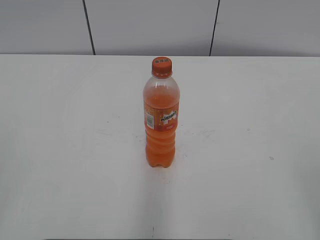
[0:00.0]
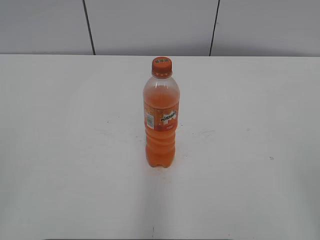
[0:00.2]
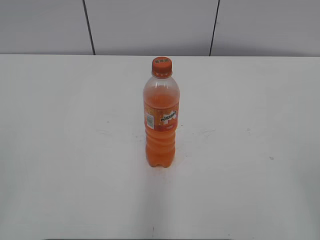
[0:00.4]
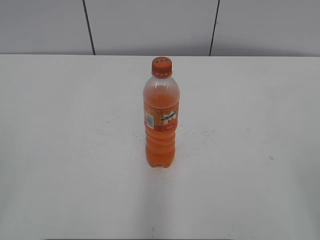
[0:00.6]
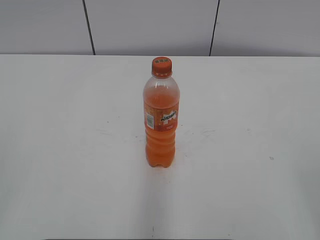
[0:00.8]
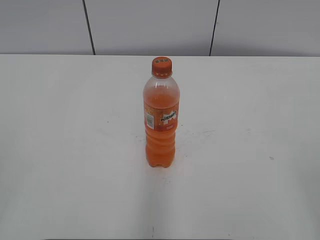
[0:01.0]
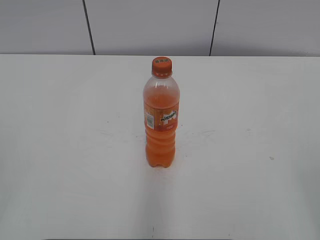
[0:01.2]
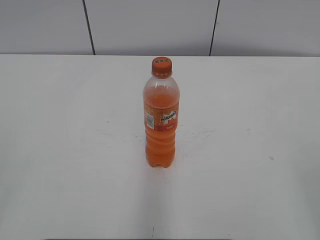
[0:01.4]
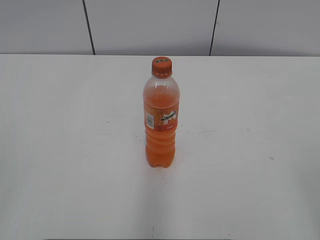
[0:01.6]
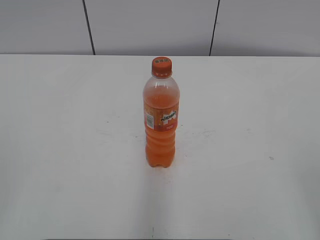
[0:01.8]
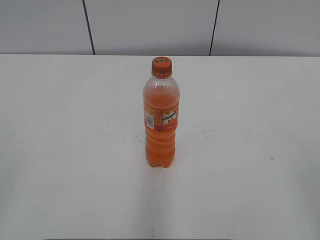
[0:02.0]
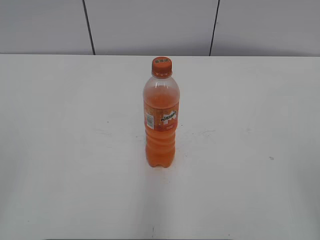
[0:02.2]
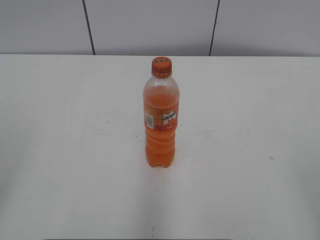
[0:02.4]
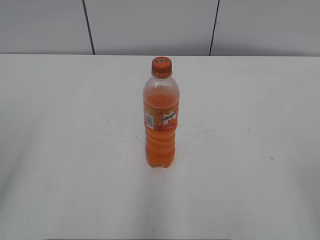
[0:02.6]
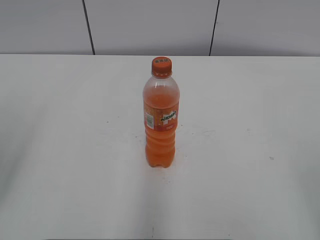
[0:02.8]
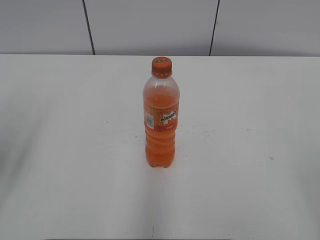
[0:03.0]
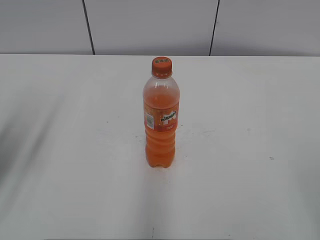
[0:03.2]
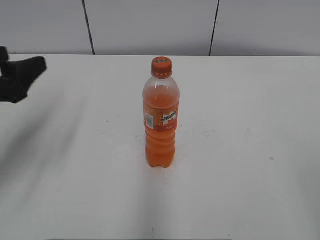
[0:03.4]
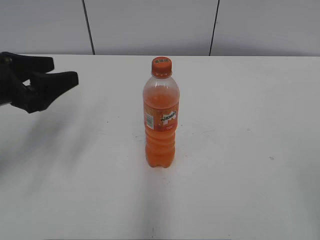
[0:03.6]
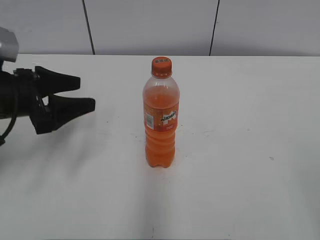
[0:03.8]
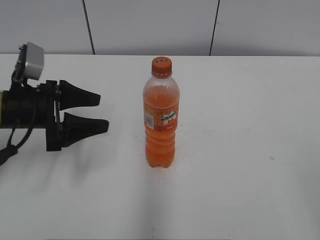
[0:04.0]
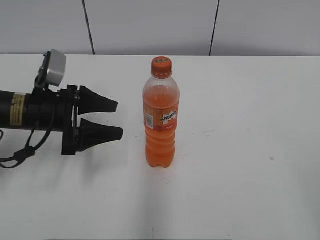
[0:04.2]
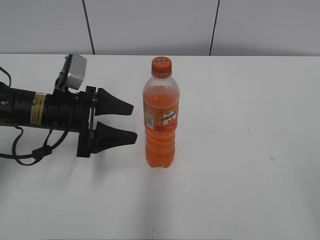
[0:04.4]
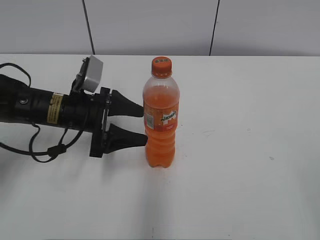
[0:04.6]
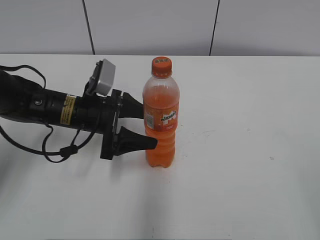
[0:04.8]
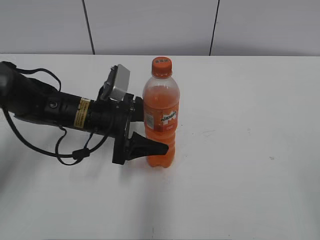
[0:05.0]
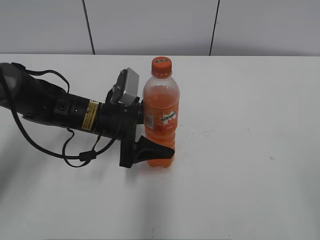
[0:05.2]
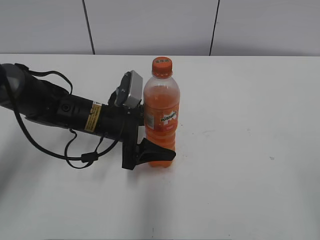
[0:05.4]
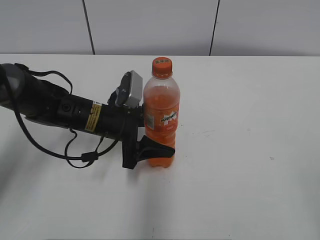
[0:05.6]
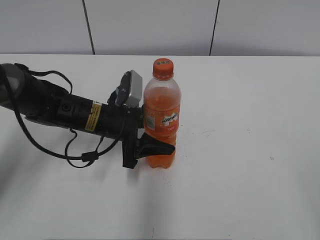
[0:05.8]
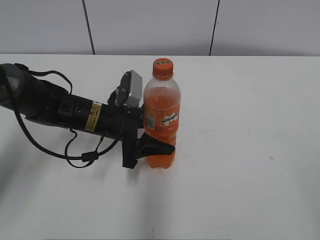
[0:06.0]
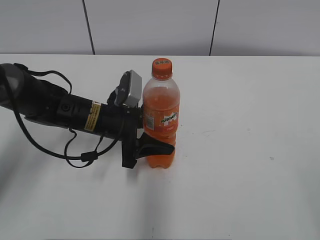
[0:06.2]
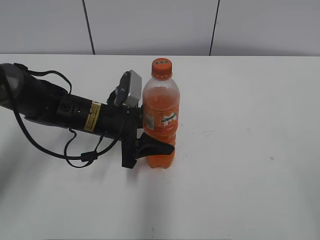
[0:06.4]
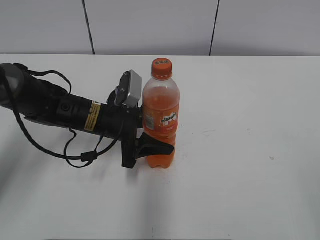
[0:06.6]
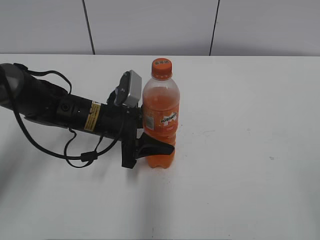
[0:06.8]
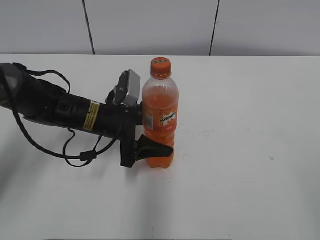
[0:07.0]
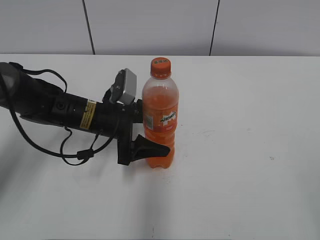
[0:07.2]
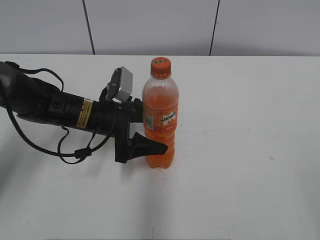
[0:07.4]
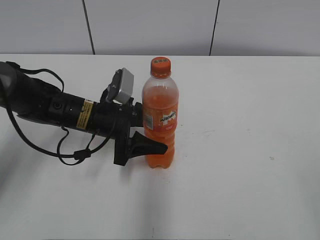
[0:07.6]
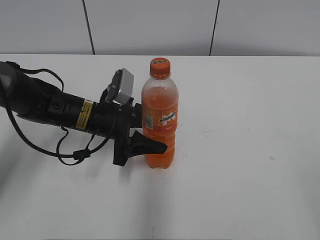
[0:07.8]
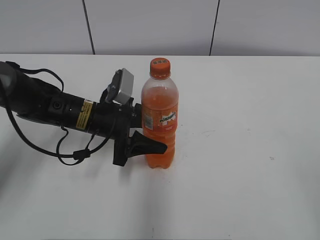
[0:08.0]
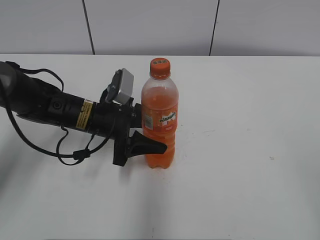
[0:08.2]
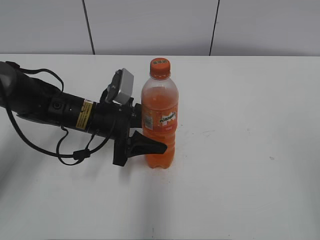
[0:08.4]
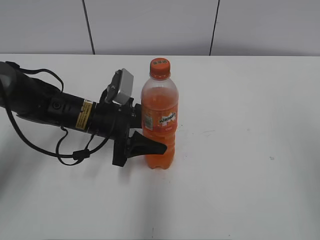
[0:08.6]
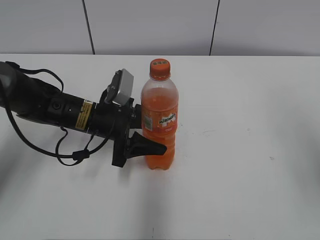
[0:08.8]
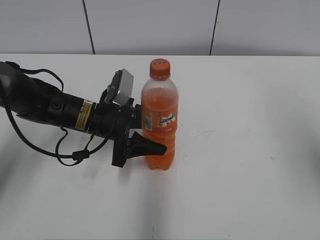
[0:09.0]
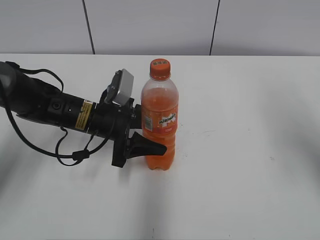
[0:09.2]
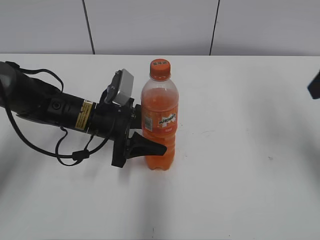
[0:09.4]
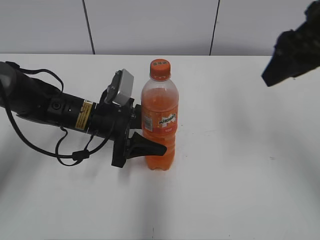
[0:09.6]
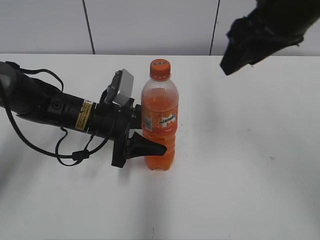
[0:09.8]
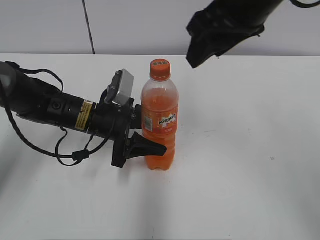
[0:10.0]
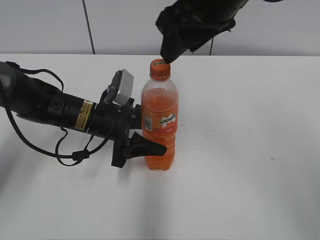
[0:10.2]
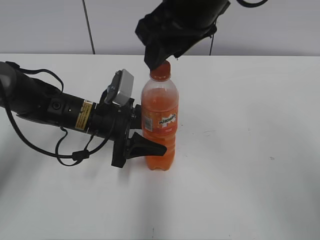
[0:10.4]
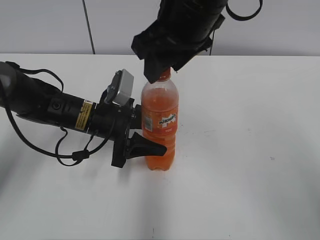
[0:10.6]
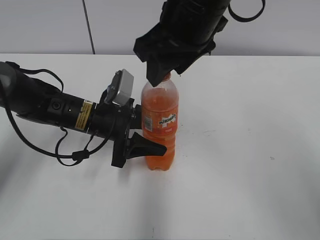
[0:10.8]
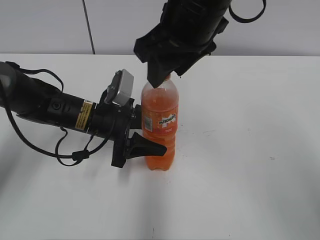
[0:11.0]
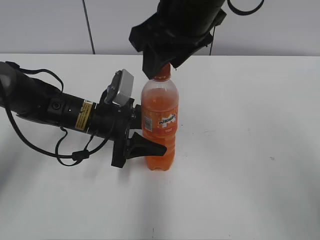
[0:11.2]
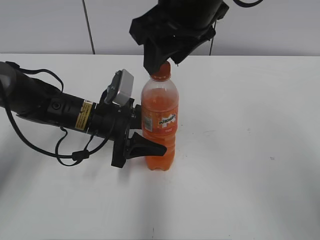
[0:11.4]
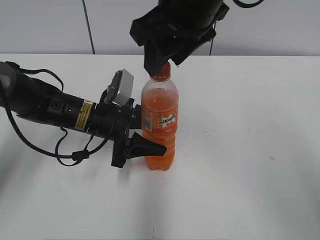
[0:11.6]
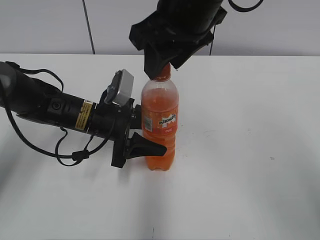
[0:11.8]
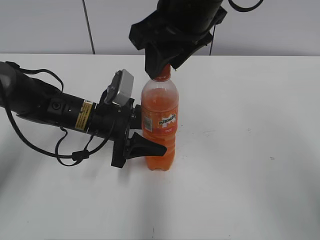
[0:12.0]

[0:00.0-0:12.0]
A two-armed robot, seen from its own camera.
Step, 0:00.0 to 0:05.8: Grab the Mirinda with the left hand.
0:01.6 to 0:03.0: The left gripper travels forward by about 15 cm, and opens its fingers.
0:03.0 to 0:04.4: The left gripper shifts roughly 25 cm forward, downward and to the right.
0:04.4 to 0:06.0: The left gripper travels to the right by about 10 cm, and closes.
0:06.0 to 0:07.6: The grippers make only small movements.
0:07.6 to 0:09.0: The right gripper goes approximately 15 cm forward.
0:09.0 to 0:10.4: The right gripper is displaced to the left and forward by some 25 cm.
0:10.4 to 0:12.0: The grippers make only small movements.

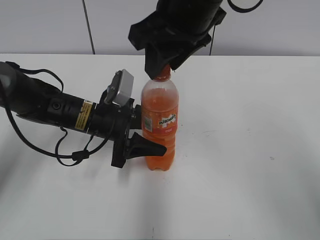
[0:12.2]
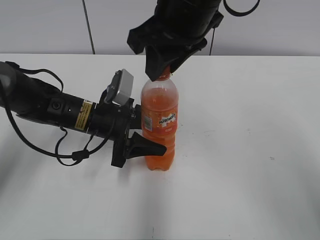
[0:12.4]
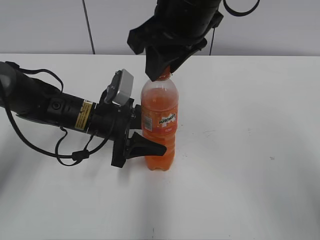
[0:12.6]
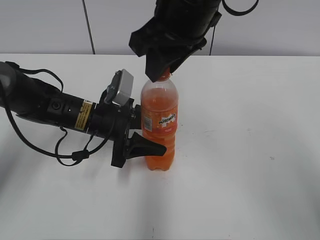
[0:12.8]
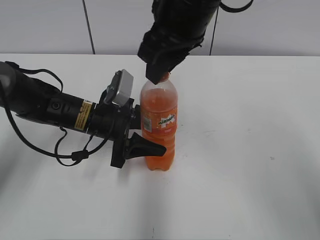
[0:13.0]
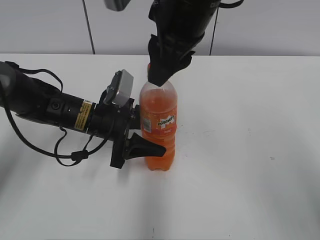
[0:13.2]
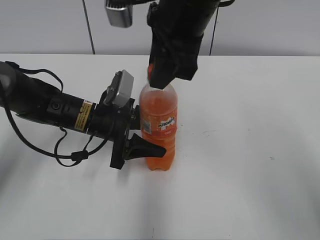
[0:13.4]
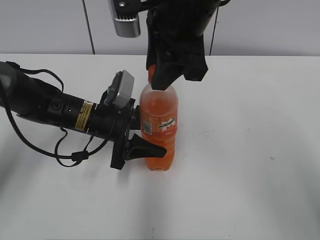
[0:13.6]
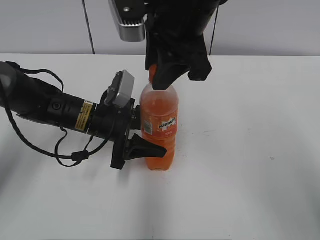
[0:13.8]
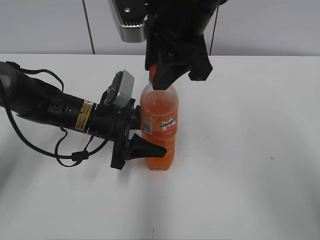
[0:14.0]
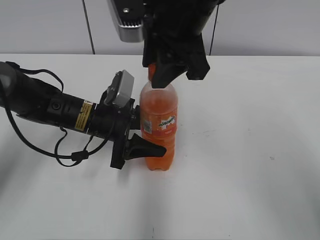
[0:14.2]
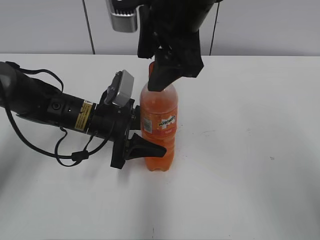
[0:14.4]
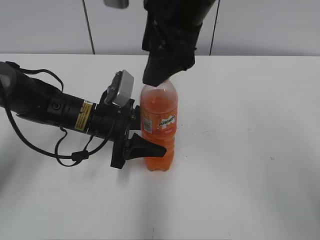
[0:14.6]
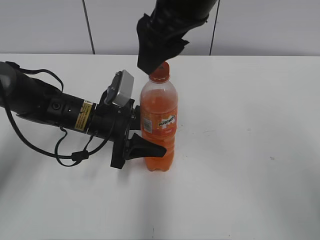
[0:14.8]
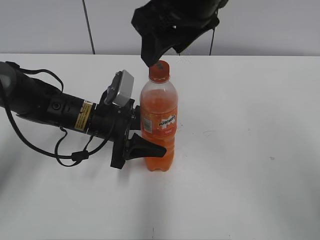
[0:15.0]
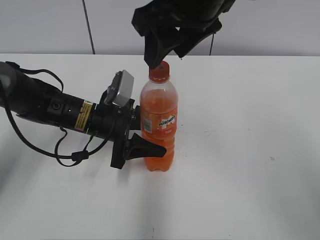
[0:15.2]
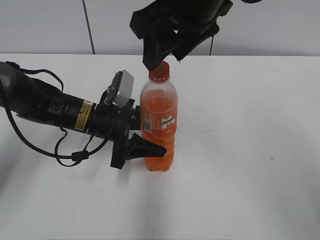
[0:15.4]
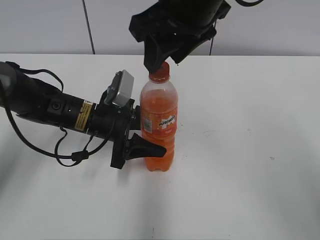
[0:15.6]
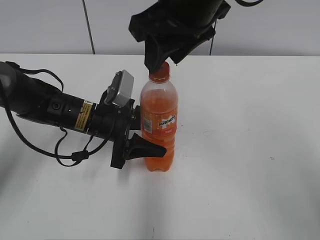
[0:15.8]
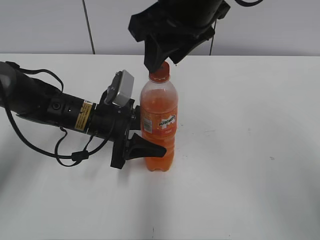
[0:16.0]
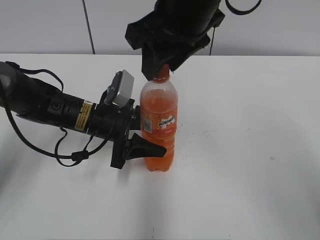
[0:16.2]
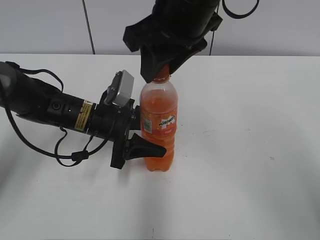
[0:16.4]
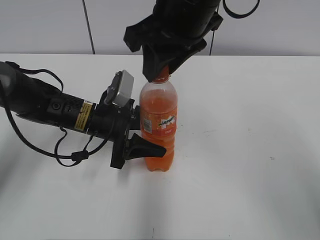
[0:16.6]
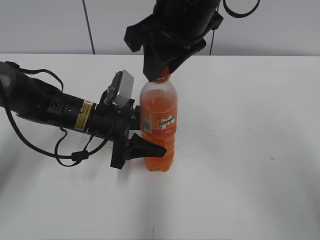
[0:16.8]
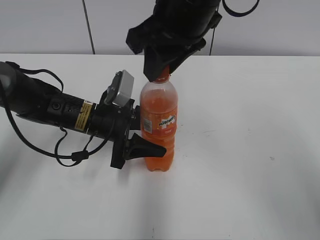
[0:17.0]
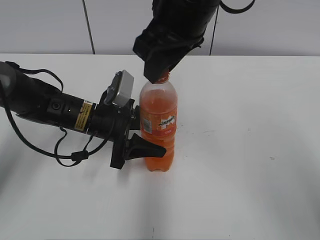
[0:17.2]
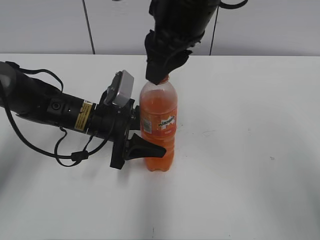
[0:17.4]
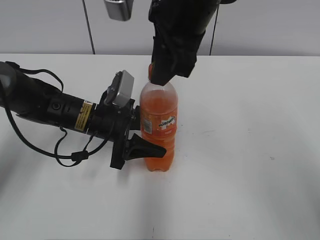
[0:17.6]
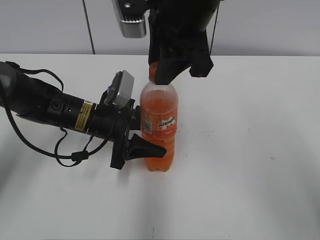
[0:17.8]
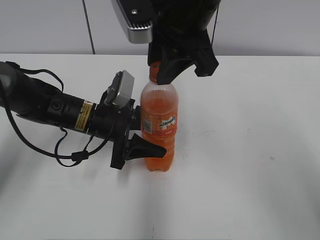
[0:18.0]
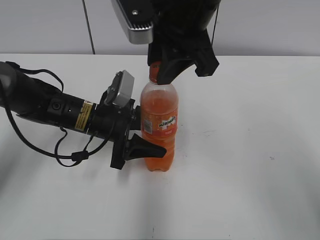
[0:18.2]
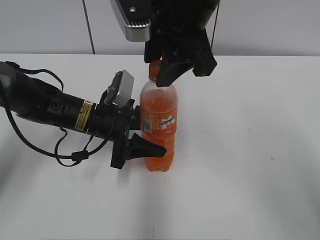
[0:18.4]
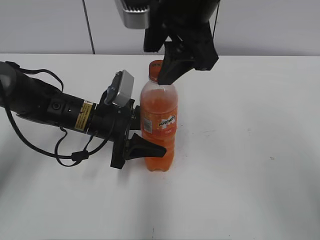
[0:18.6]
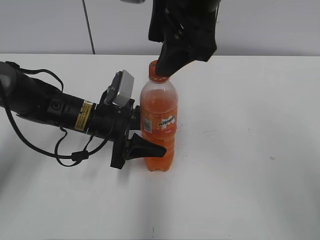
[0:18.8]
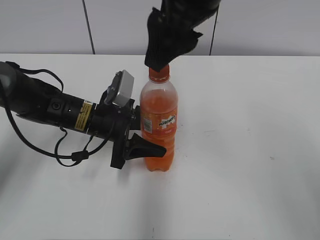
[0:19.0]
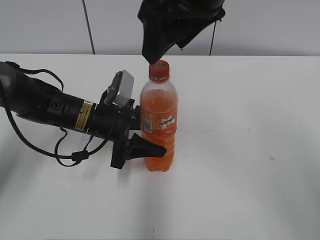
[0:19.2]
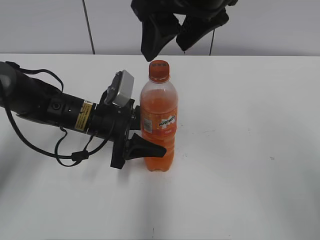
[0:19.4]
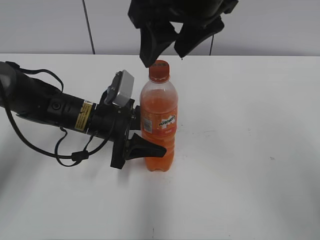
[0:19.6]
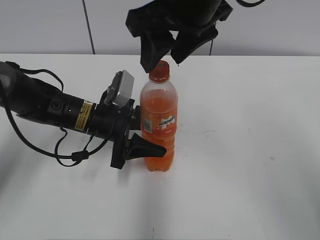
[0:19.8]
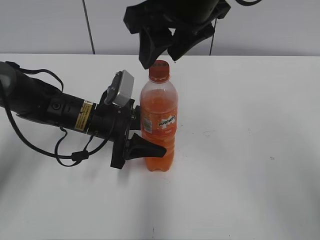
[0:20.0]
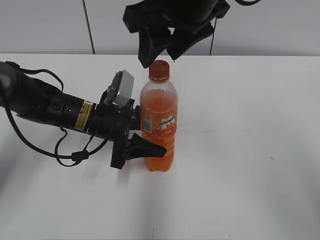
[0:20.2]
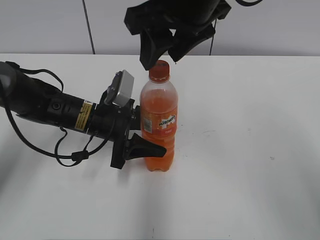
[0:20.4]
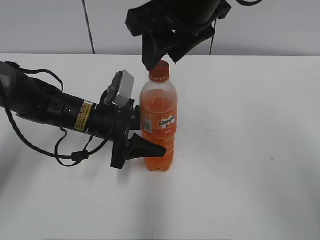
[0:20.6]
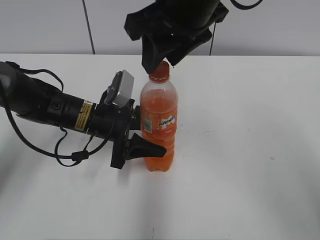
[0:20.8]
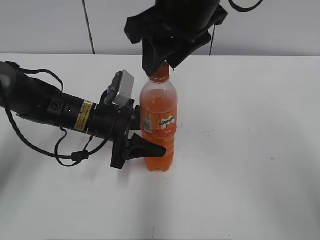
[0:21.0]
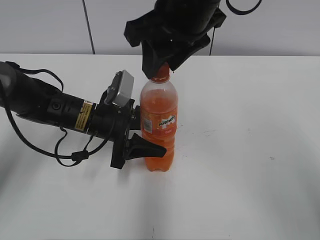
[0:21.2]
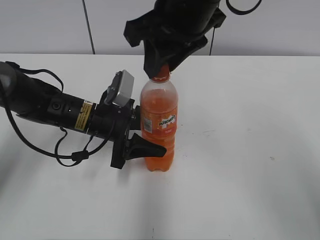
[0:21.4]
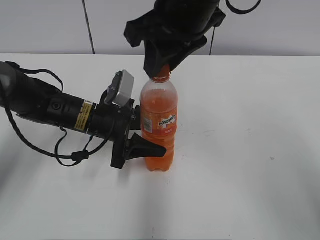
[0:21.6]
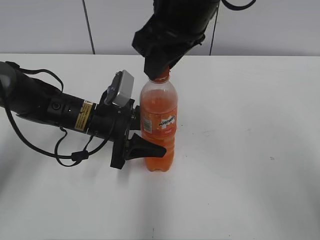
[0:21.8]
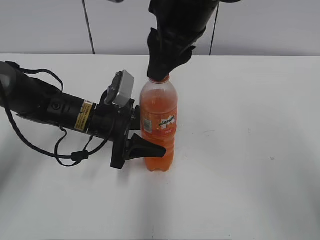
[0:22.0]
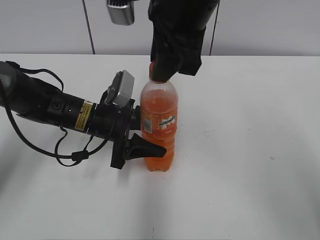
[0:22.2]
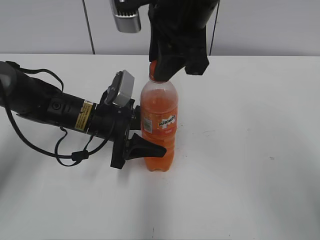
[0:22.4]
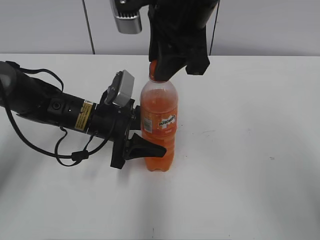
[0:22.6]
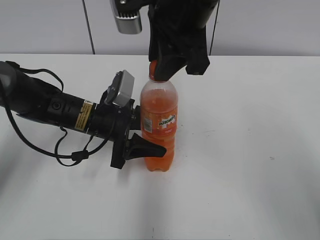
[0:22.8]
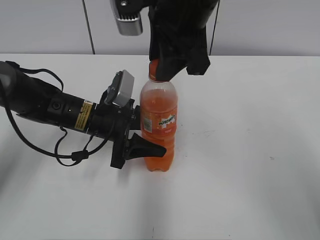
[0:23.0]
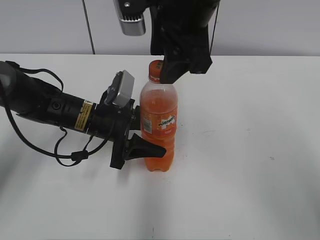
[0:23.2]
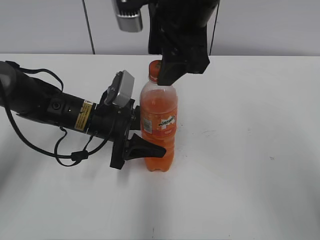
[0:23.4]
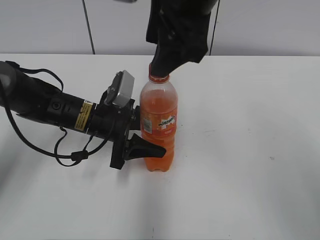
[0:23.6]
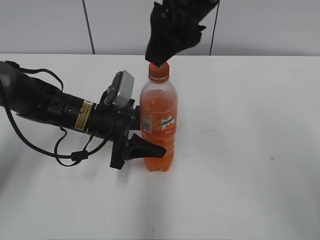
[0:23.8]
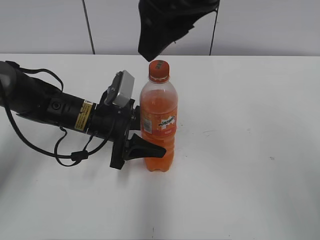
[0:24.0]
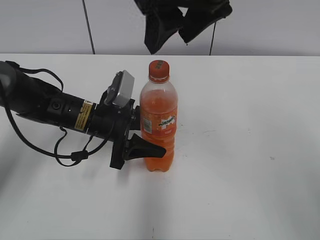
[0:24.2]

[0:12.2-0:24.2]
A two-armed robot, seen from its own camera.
0:13.8 to 0:15.2: The right gripper opens its fingers.
0:15.2 to 0:16.6: The right gripper closes its fingers.
0:18.2 to 0:19.8: The right gripper opens its fingers.
0:19.8 to 0:21.2: The grippers stay close to where they were, moving slightly.
0:22.6 to 0:24.2: The right gripper opens up.
